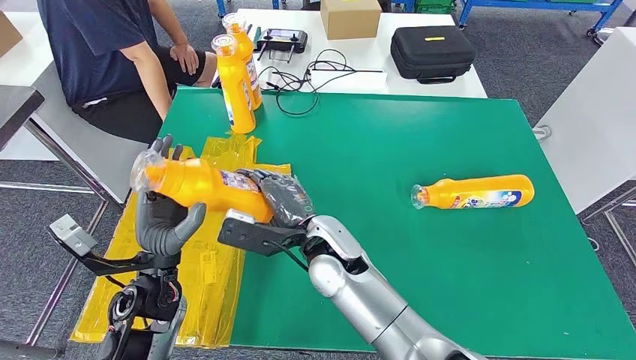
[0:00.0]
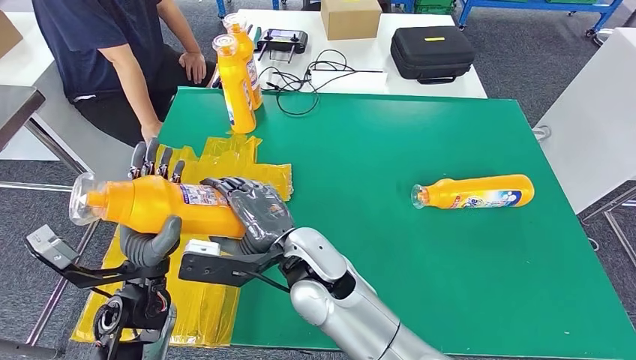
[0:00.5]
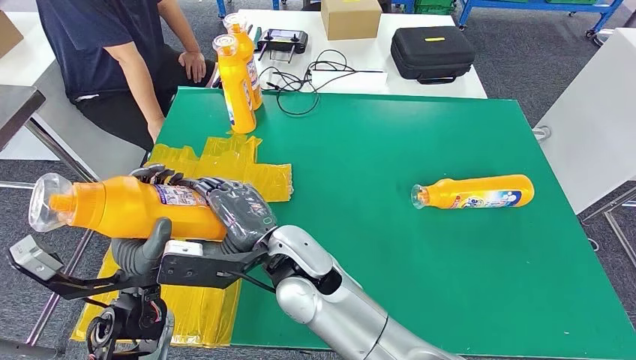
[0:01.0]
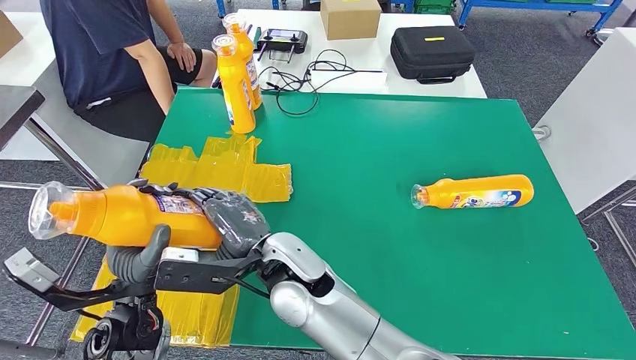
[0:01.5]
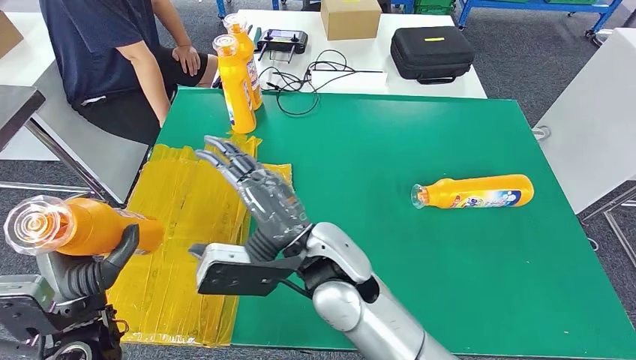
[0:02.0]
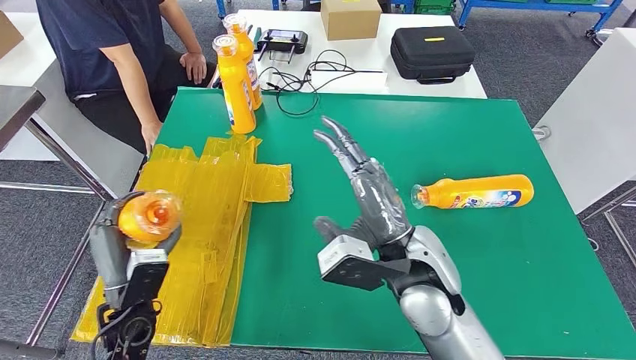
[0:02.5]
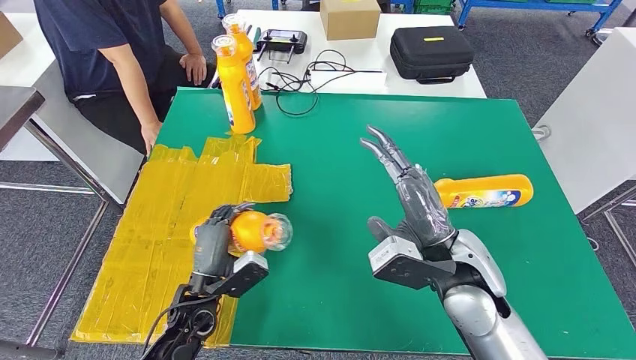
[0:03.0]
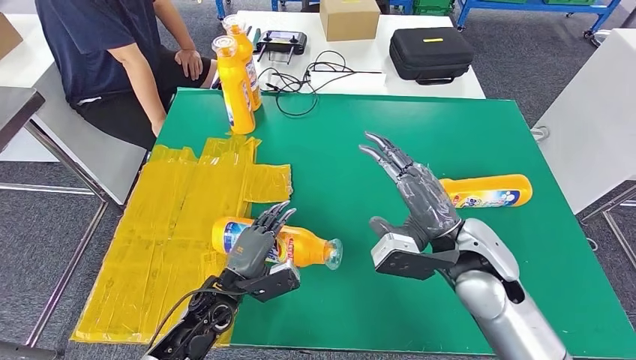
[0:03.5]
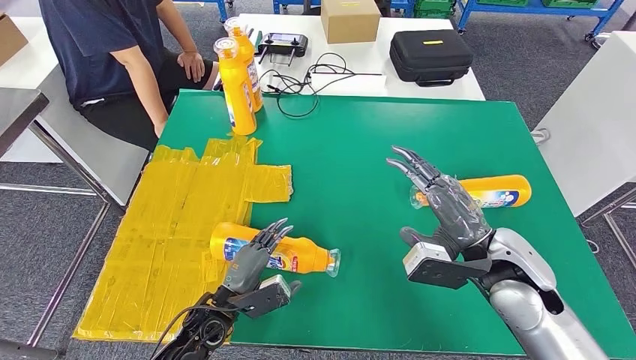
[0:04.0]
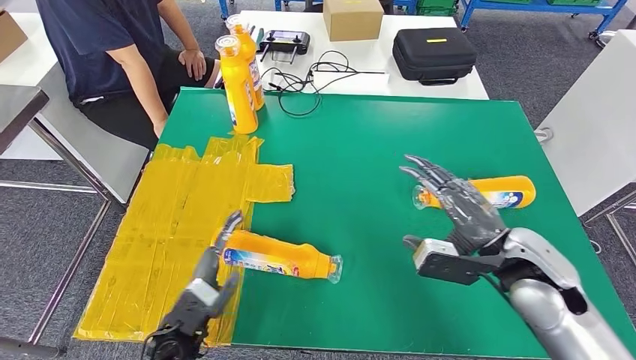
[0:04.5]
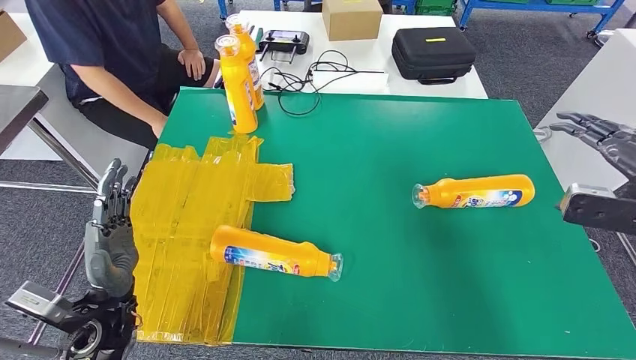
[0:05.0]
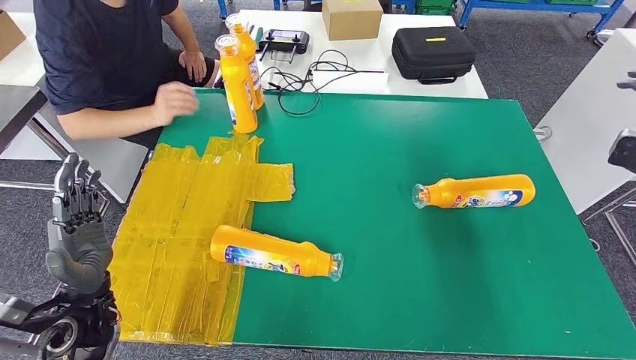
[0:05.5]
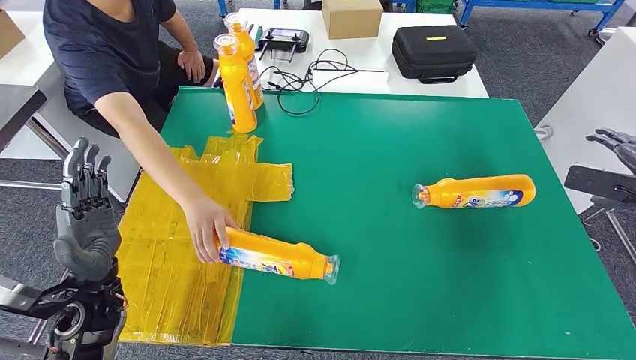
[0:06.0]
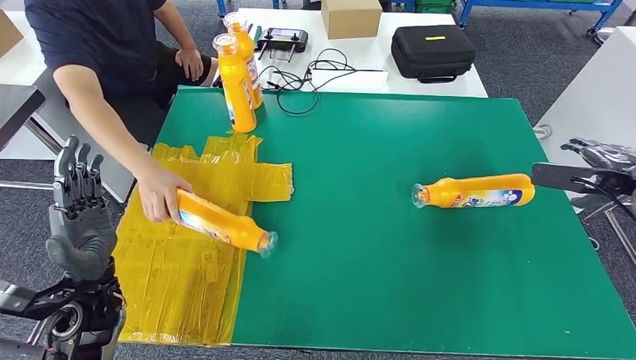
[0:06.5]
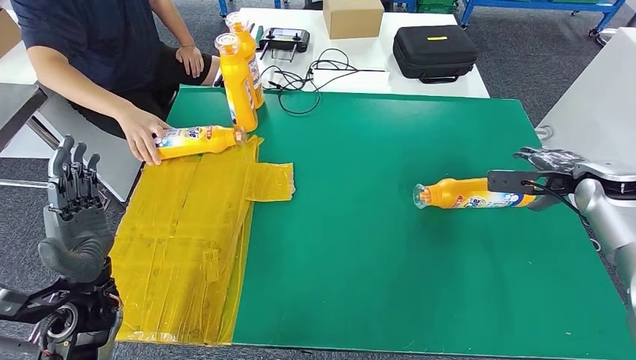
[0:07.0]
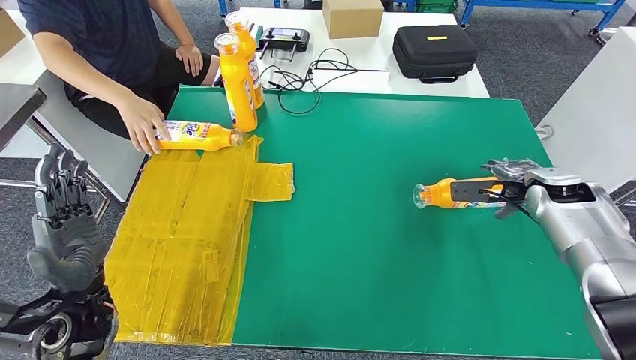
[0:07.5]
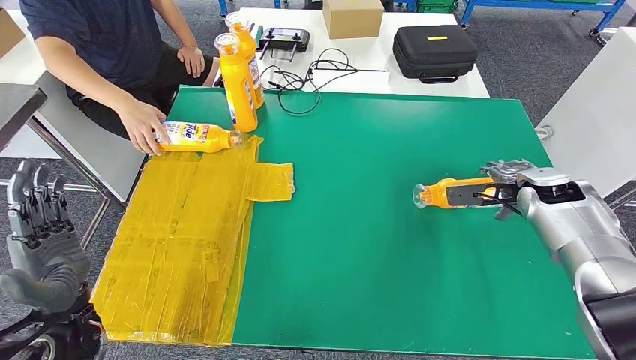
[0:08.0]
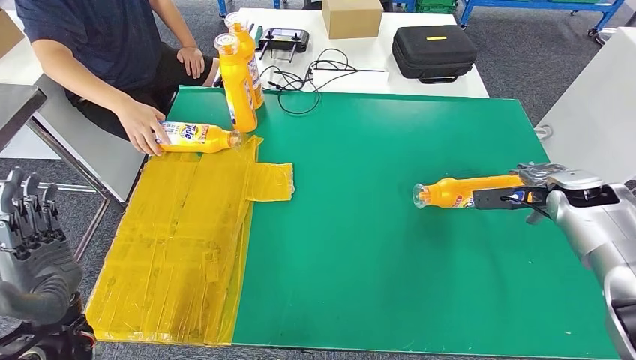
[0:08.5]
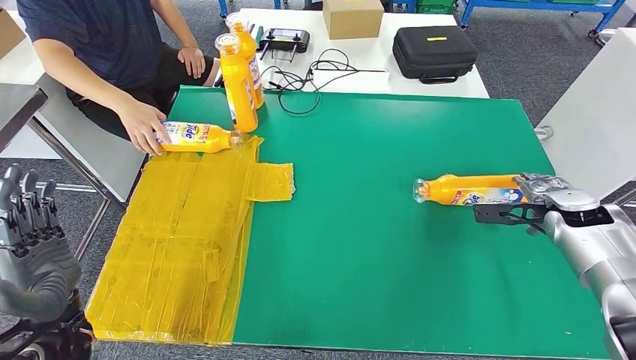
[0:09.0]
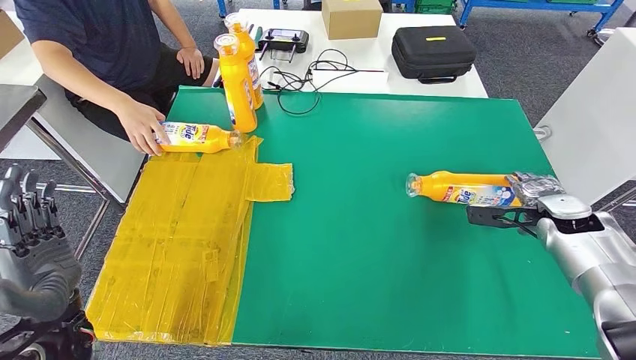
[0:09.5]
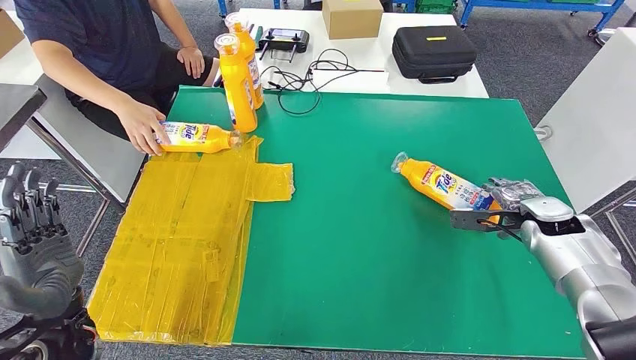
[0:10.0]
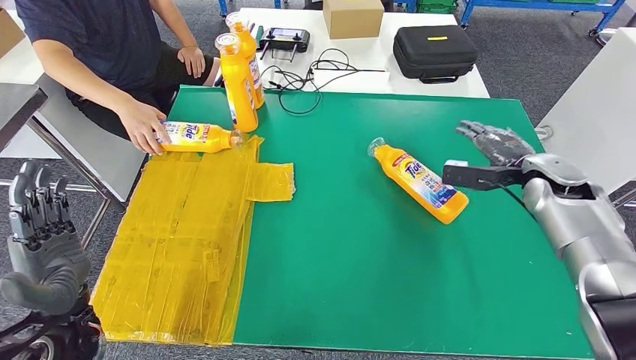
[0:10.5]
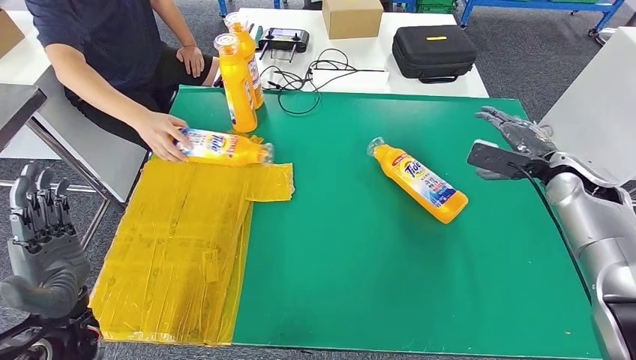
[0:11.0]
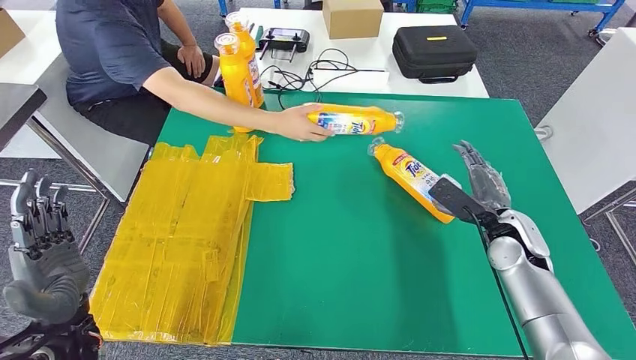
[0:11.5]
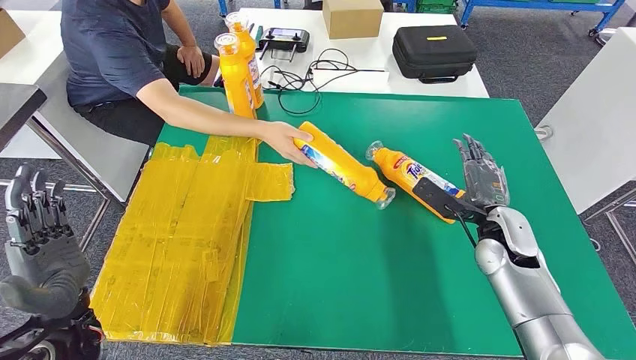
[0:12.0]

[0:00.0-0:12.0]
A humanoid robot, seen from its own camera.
Step, 0:00.0 to 0:02.5: Pick up the fast-moving consumer goods bottle from the table.
Step, 0:03.0 to 0:08.0: Flip the fast-moving consumer goods bottle to the front side.
0:08.0 to 0:10.0: The right hand moves approximately 5 cm.

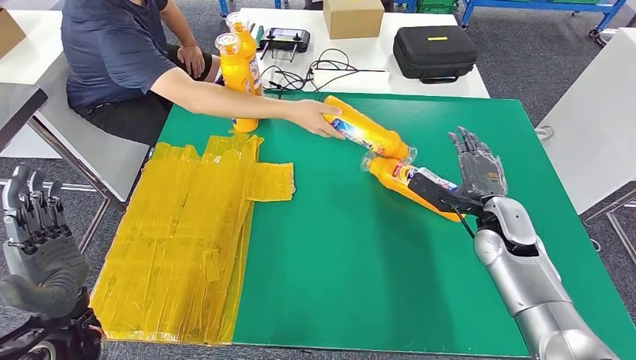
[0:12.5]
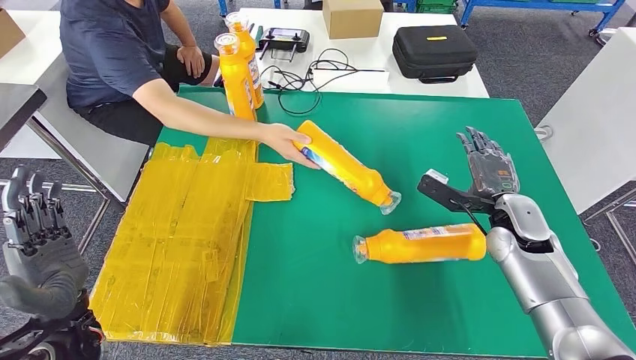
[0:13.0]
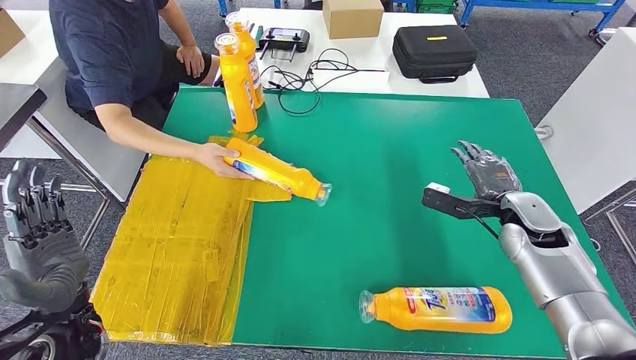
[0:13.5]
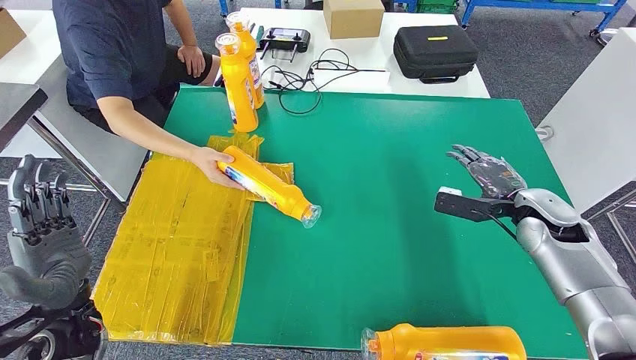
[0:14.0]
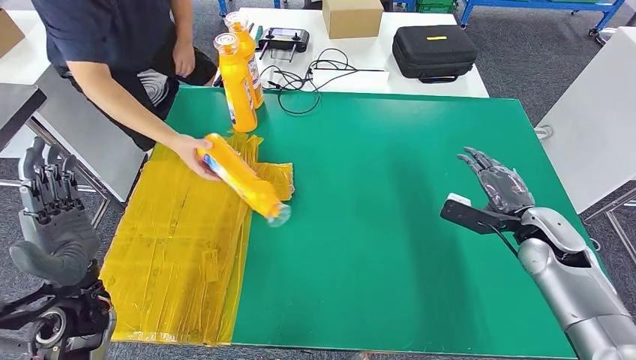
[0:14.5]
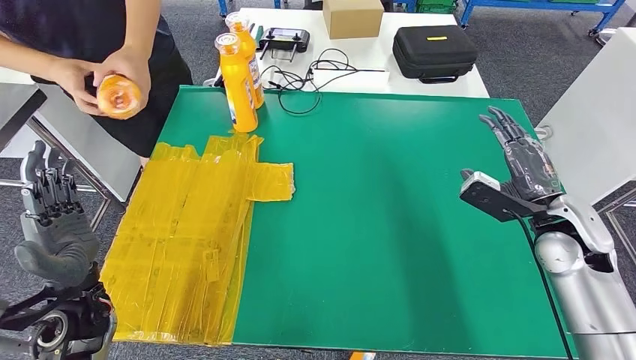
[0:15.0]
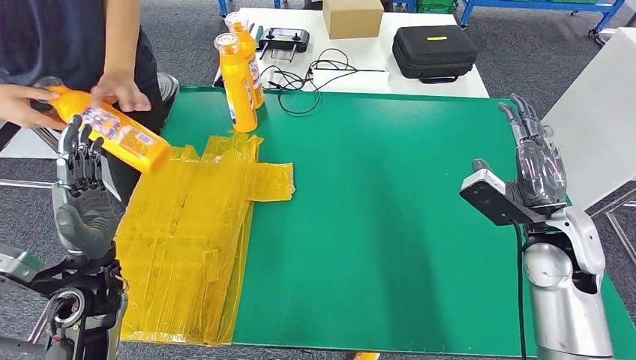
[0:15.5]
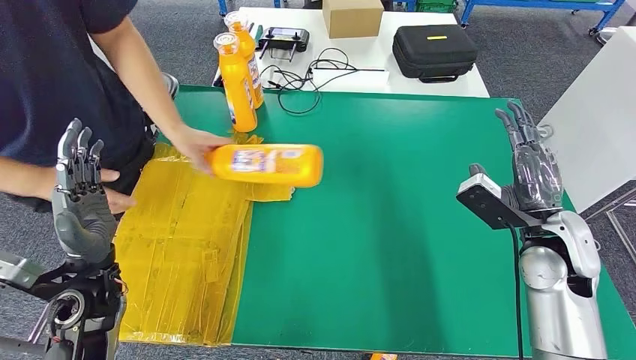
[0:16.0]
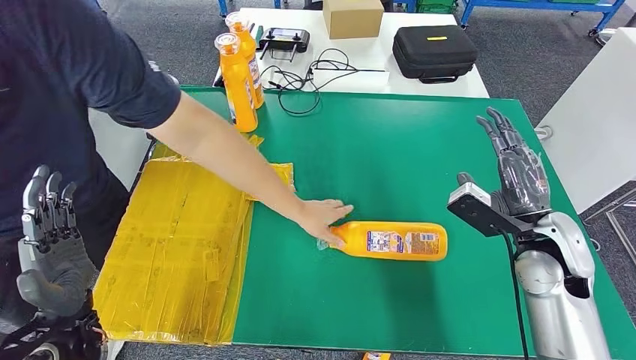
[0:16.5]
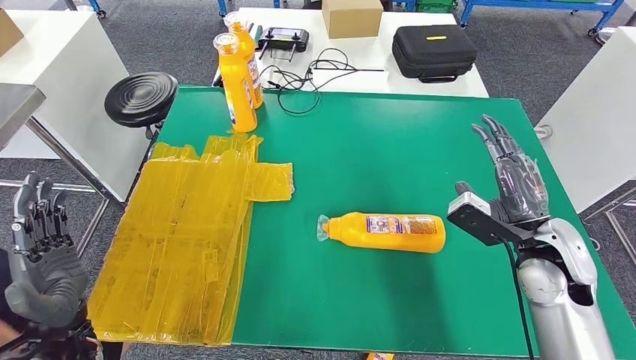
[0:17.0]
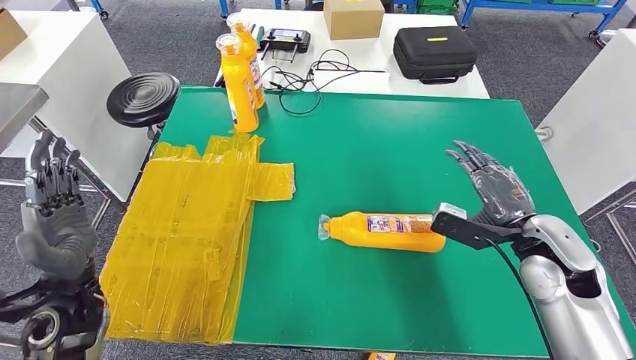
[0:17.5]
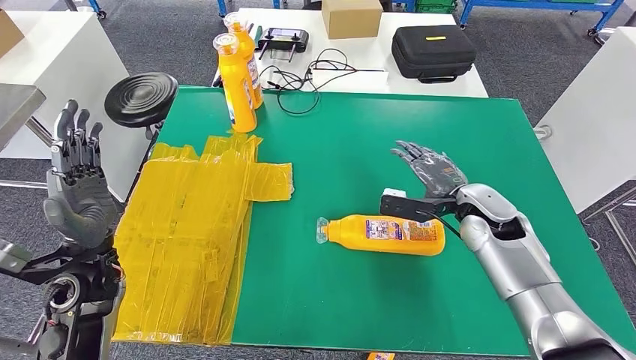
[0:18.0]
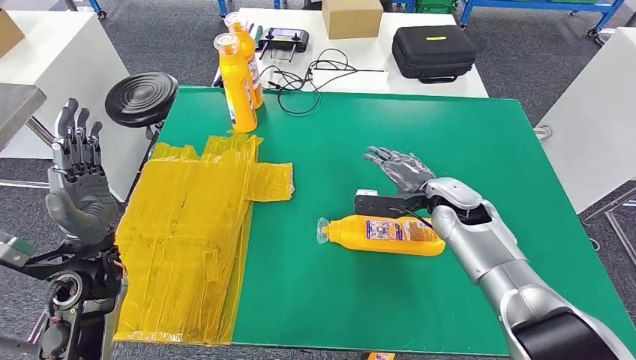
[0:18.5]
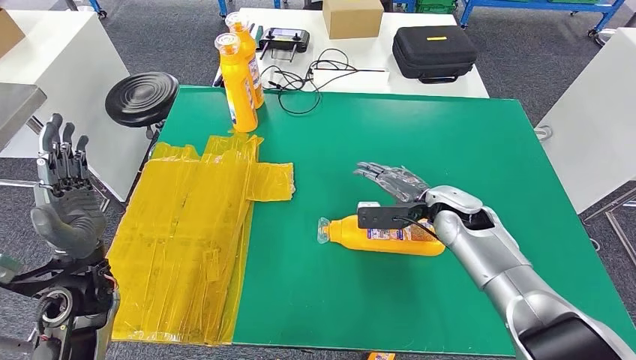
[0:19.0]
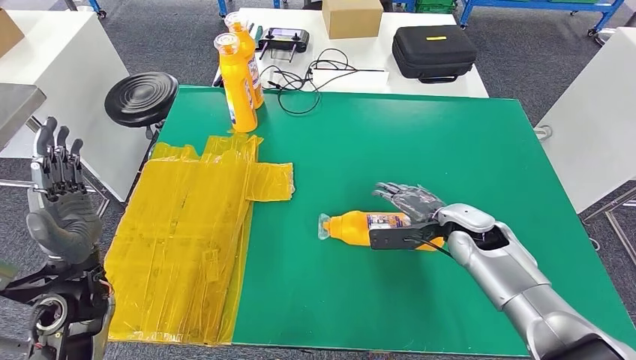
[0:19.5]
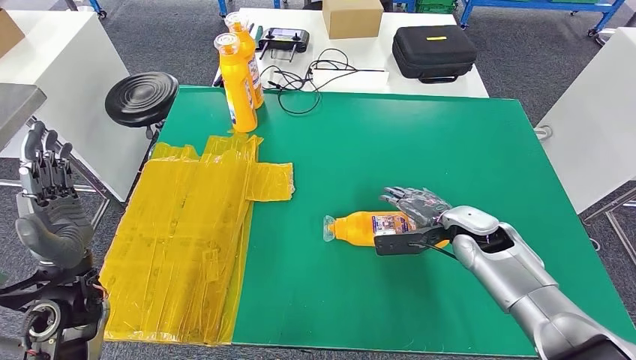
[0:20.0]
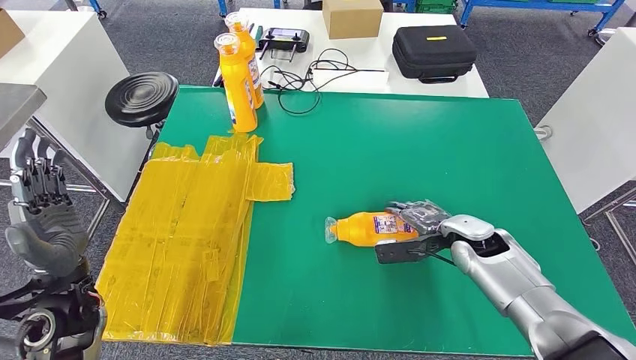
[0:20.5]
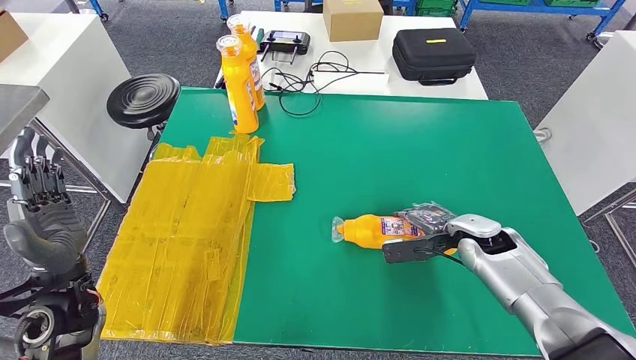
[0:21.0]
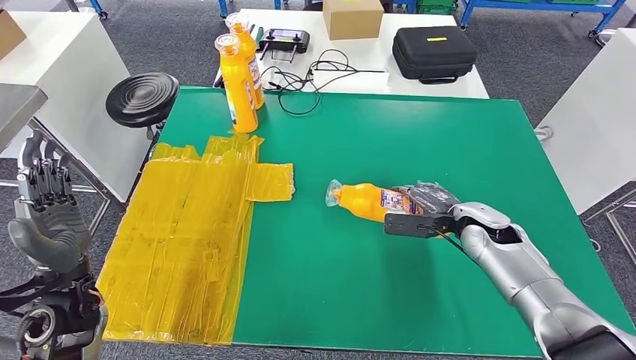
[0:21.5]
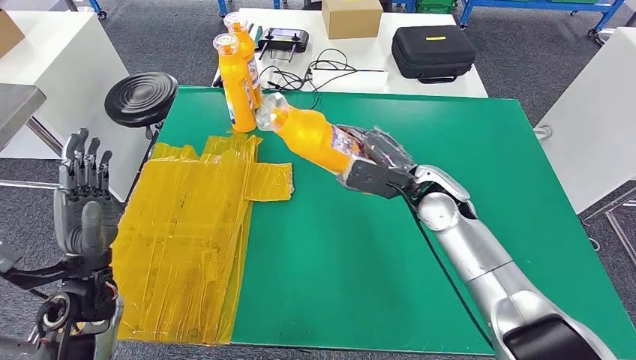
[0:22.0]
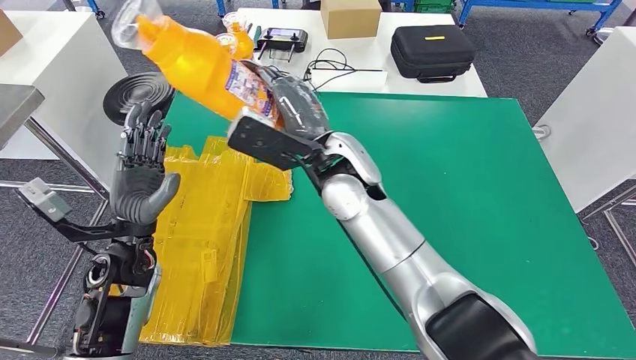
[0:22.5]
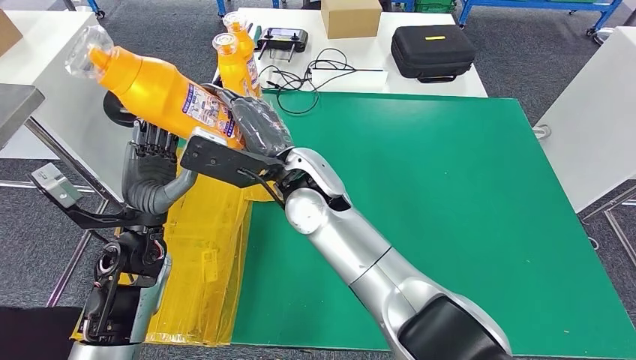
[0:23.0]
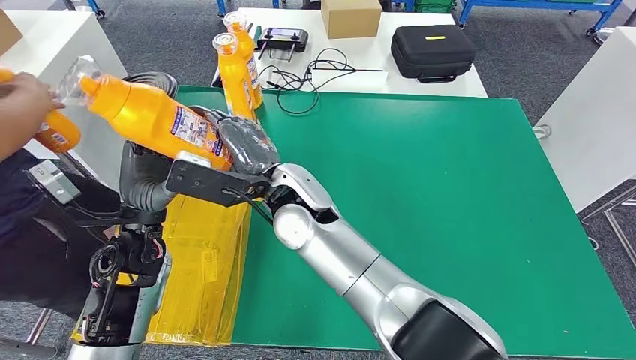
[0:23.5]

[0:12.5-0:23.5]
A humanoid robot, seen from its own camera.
0:18.0 to 0:20.0: The hands stay close to where they were, moving slightly.
0:20.0 to 0:21.5: The hands stay close to where they were, moving slightly.
